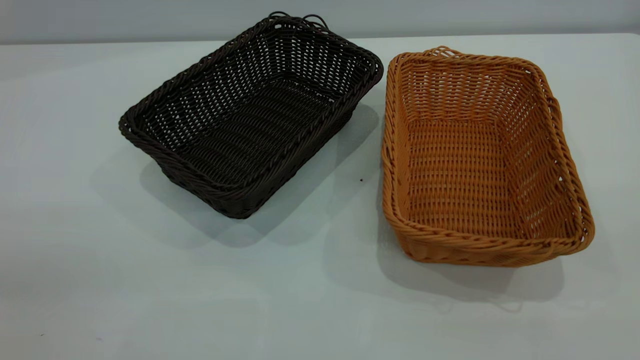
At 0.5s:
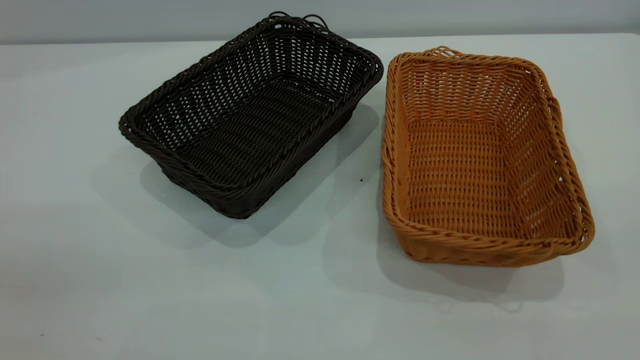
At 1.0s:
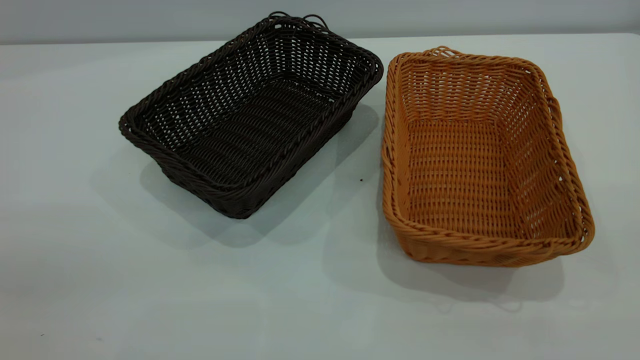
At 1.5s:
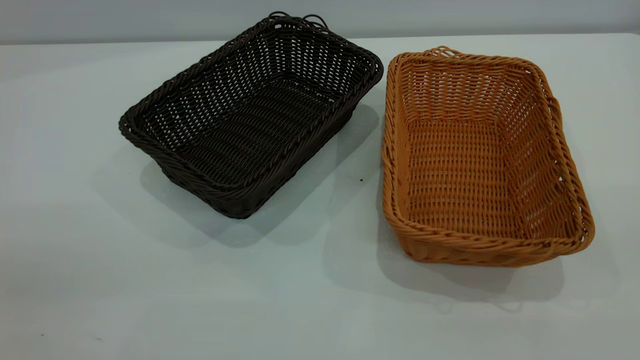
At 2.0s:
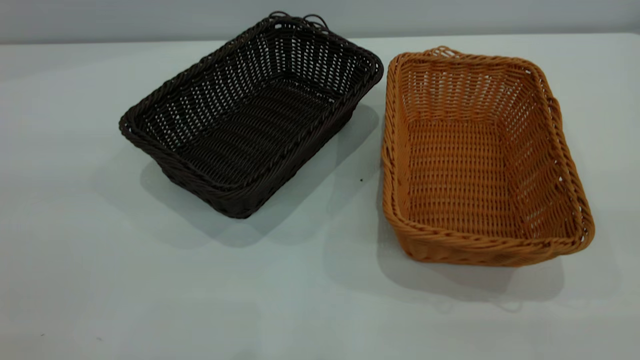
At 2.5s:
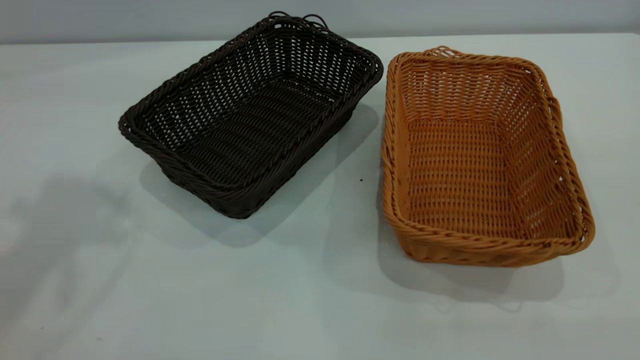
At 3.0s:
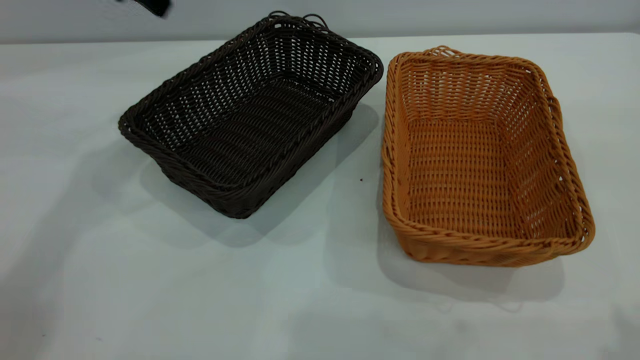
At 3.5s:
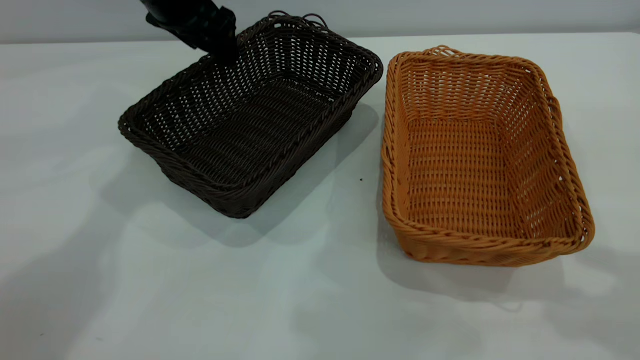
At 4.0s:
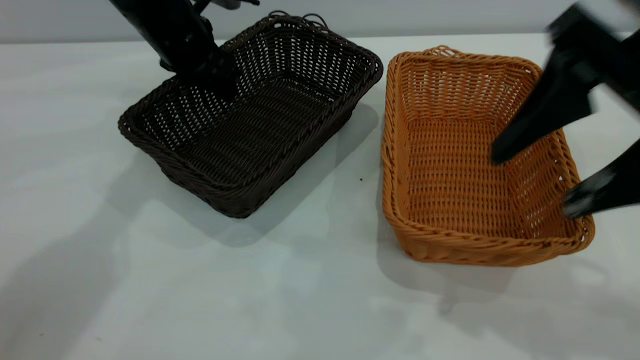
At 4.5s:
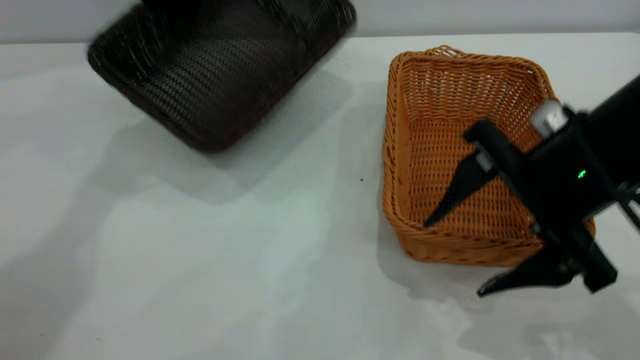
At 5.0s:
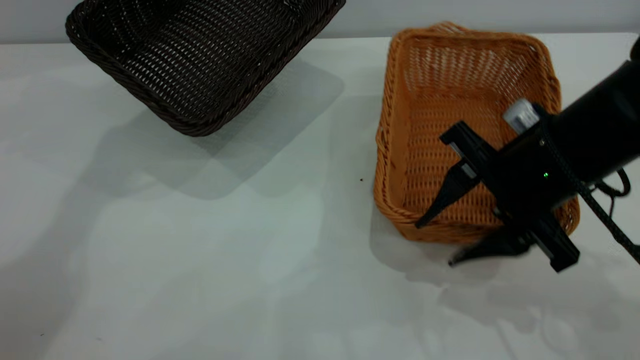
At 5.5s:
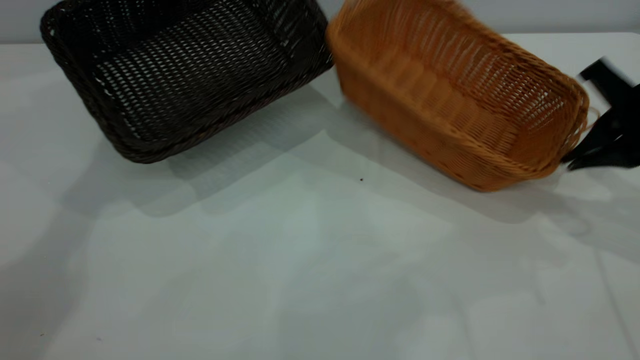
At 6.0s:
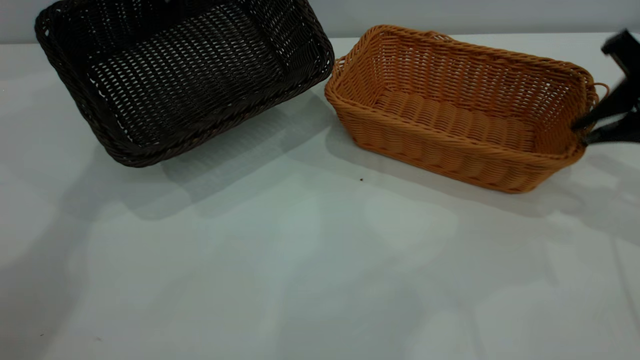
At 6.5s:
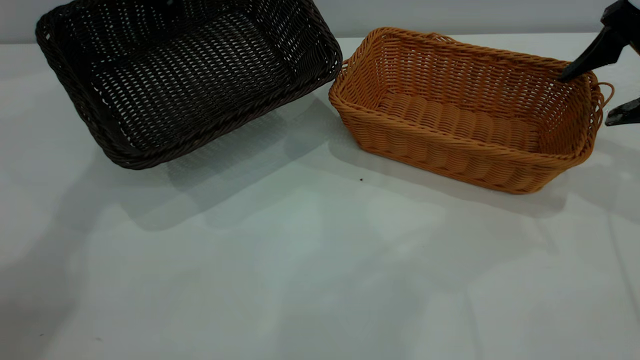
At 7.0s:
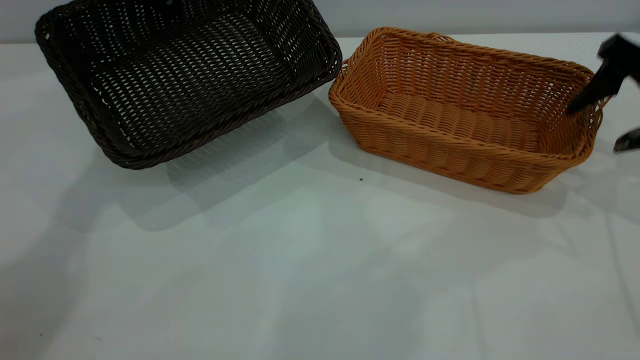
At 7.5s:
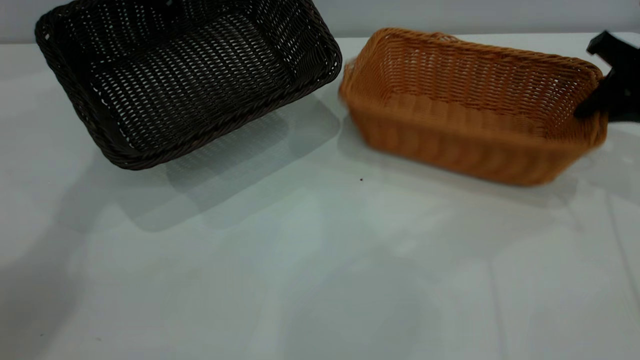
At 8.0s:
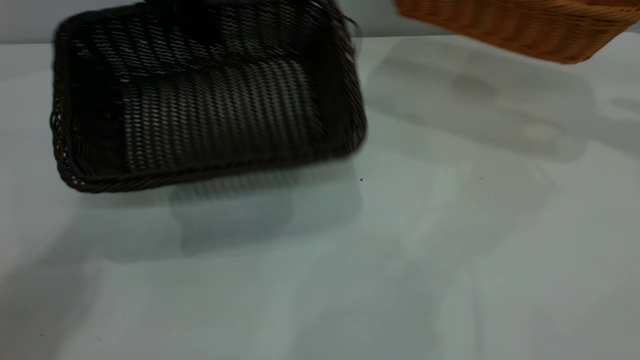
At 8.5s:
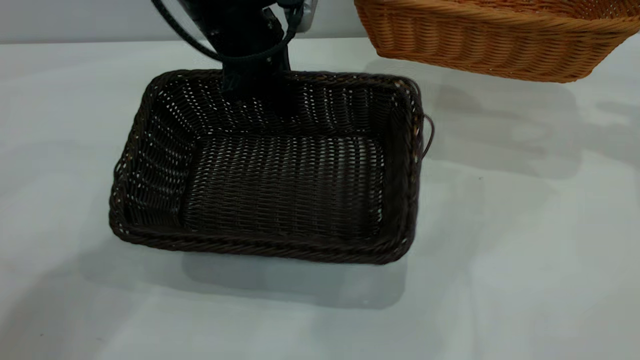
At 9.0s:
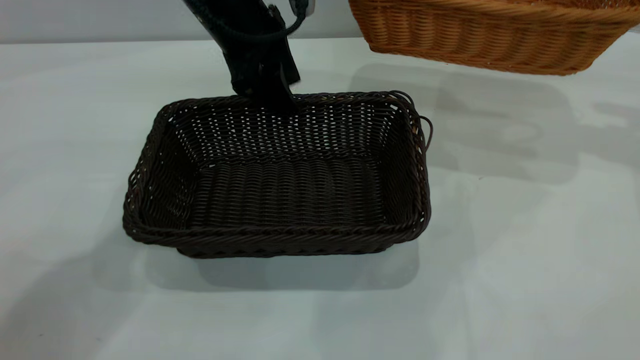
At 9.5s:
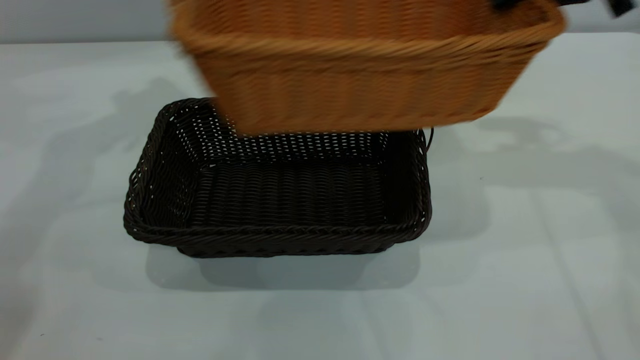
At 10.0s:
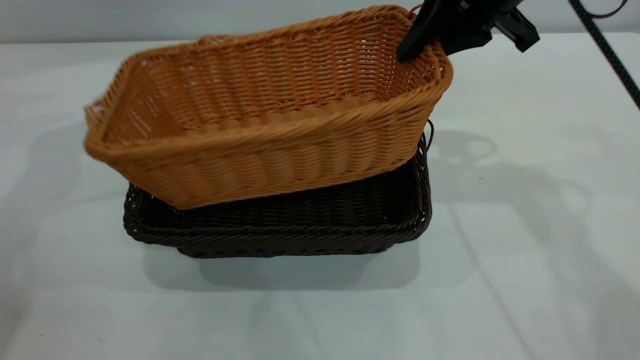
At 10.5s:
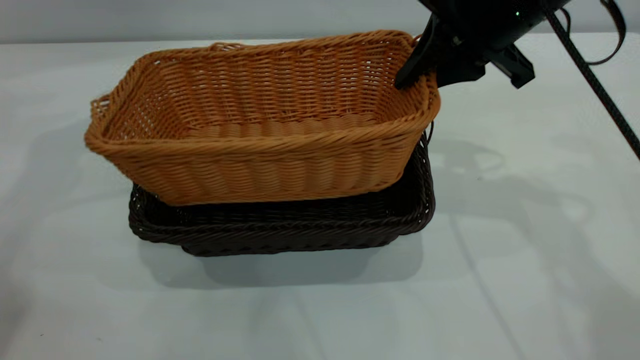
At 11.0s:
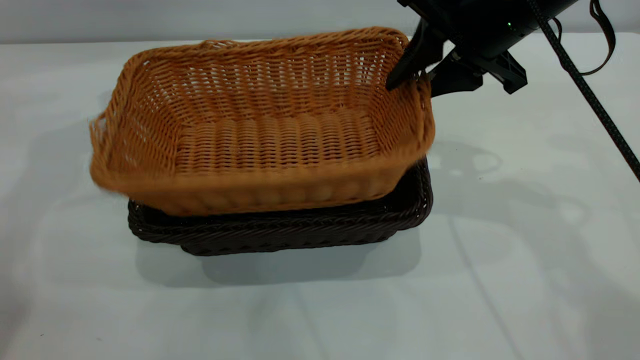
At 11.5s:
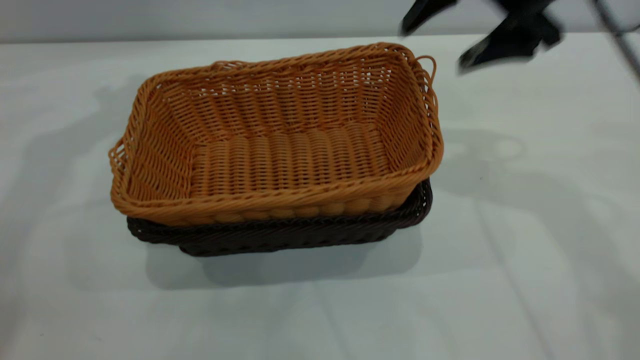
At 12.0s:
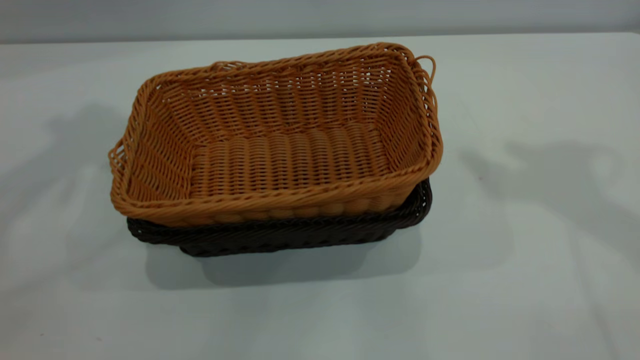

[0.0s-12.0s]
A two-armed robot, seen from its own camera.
Task of the whole recording: the left gripper grasp the black basket and place it in the center of the table, the right gripper grasp the brown basket and place it inside the black one.
Step, 0.0s to 7.5s: Pick up the light basket with the right gripper.
Step, 8.0s to 9.0s: Move the dark basket to the center of view.
Step, 9.5s to 11.0s: Place the light basket on the dark basket.
2.0s to 4.0s: The left gripper travels forward and downward by roughly 50 cm, and closes its fingers. Meanwhile the right gripper moves forward, downward and to the left, about 25 cm.
4.0s to 6.0s: The left gripper travels upward by about 10 cm, and closes its fingers. The right gripper is displaced to the right, forward and downward by about 20 cm, and closes its fingers.
6.0s to 8.0s: The left gripper ends up some 5 cm from where it was; the right gripper moves forward, upward and to the right, about 15 cm, and opens and closes again.
8.0s to 10.0s: The left gripper moves to the left and upward, roughly 15 cm, and opens its fingers. Meanwhile the right gripper moves to the left, about 25 cm.
10.0s to 12.0s: The right gripper shifts approximately 25 cm upward and to the right, and opens up, while the left gripper travels upward and backward by some 20 cm.
